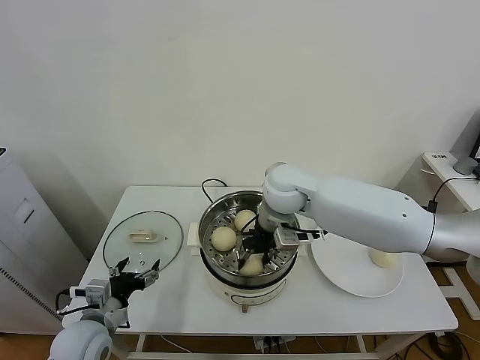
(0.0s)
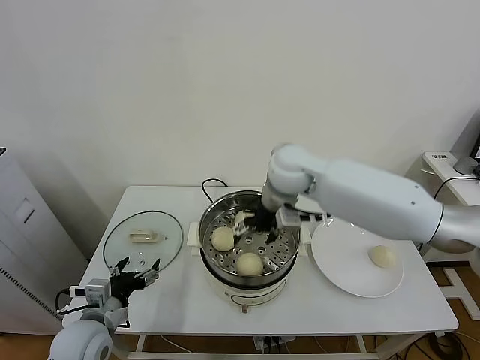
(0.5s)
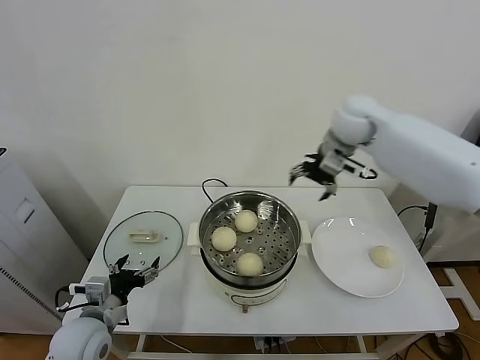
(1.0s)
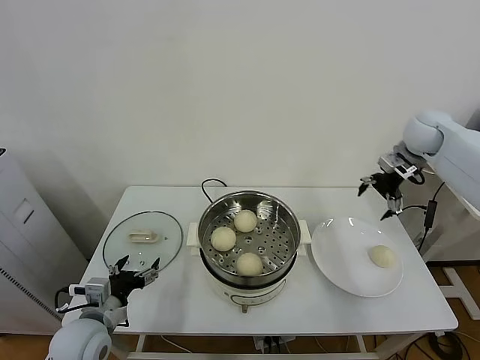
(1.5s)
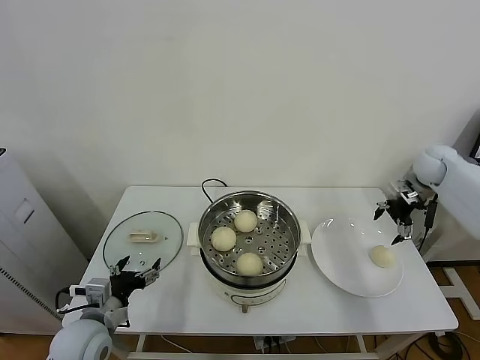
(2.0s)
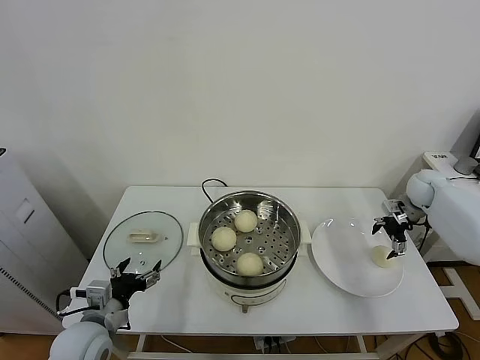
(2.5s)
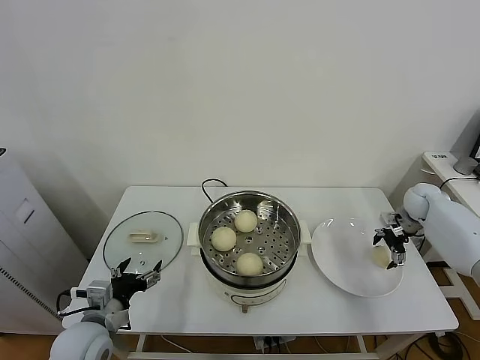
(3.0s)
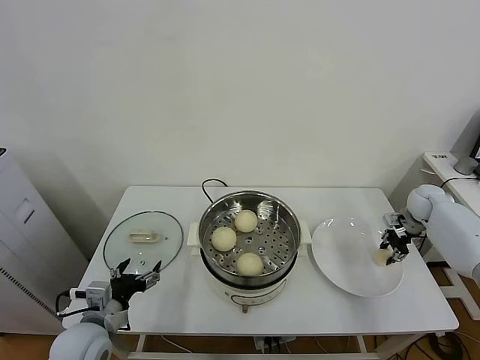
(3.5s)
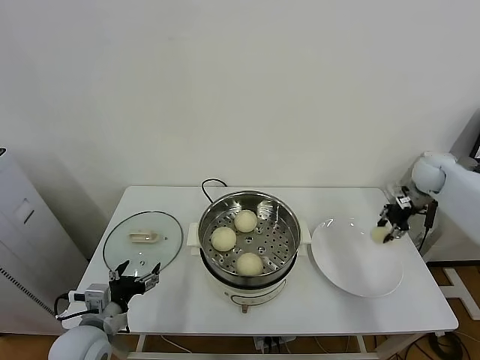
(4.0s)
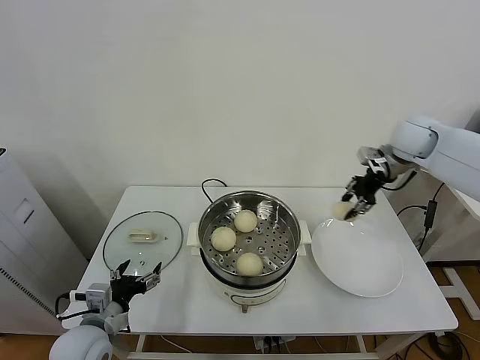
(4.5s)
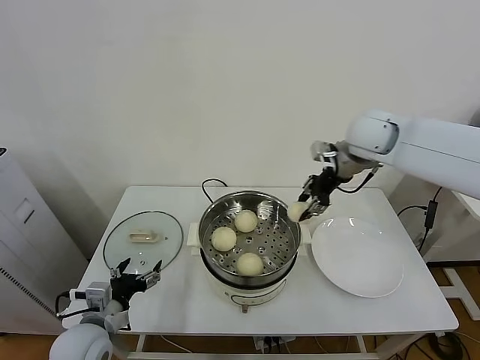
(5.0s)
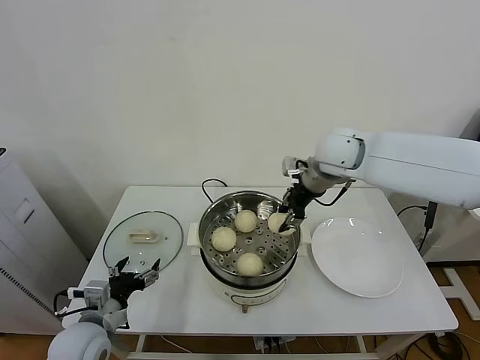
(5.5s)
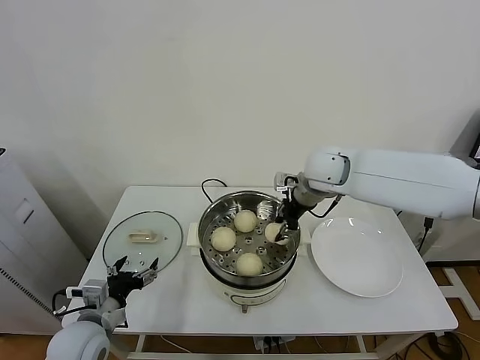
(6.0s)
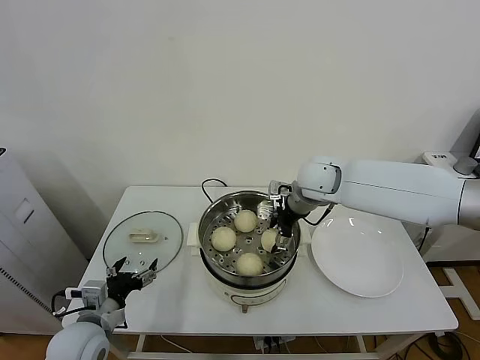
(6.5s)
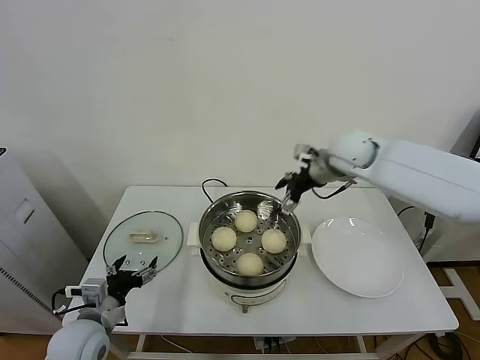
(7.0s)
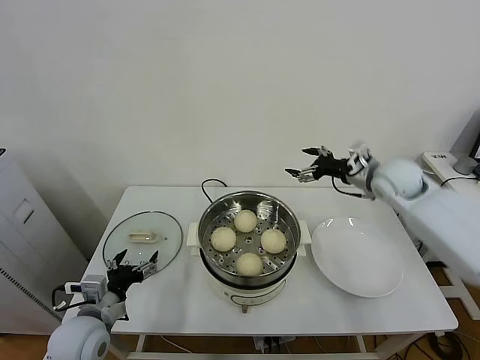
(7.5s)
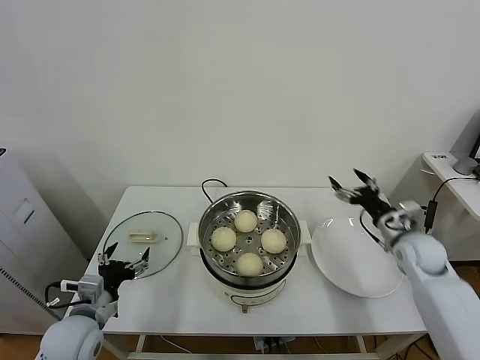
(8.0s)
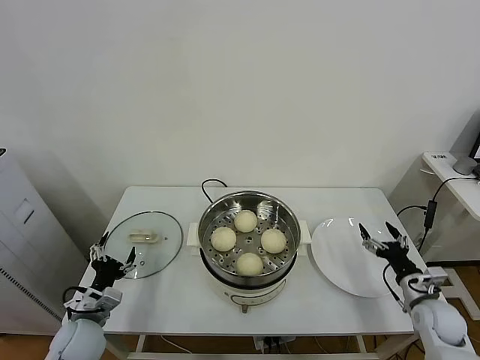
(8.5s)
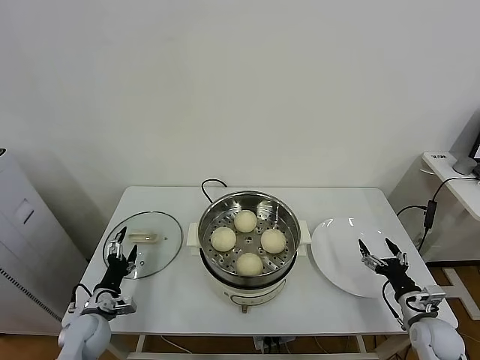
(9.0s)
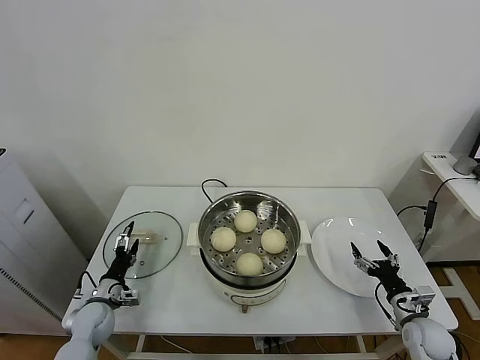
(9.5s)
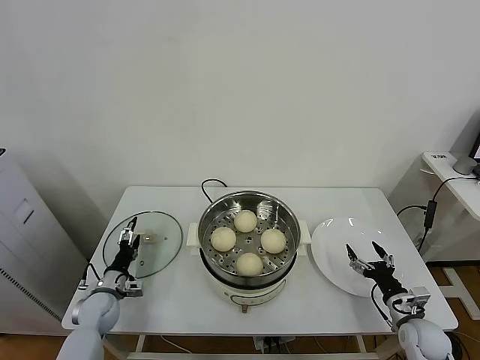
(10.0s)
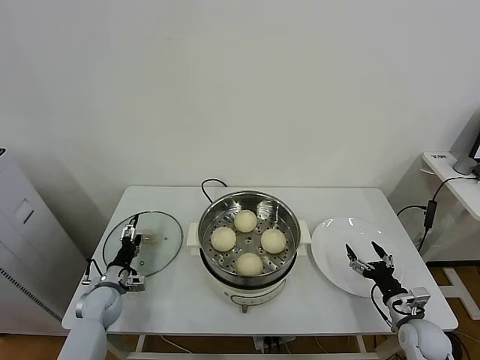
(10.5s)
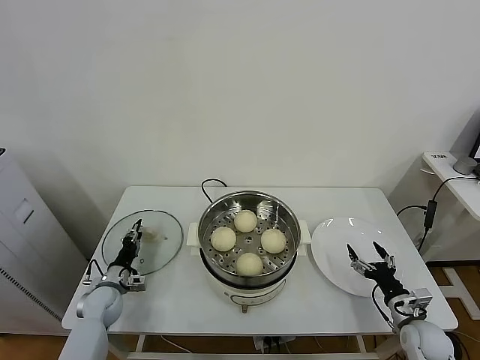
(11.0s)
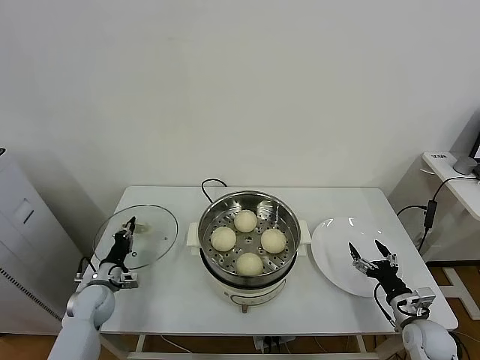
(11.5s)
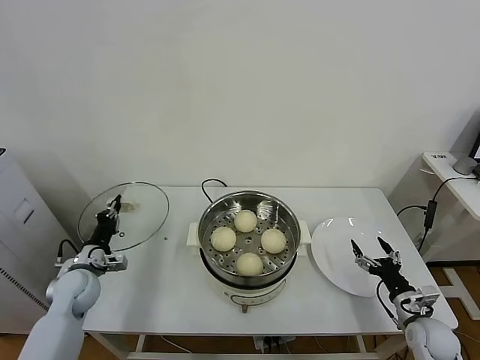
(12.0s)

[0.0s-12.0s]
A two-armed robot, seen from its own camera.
Task of the whole recording: take steamed baozi put them in steamer.
Step, 1.0s to 3.0s: Grasp the baozi in the plate with right gripper.
Step, 4.0s to 6.5s: Place the baozi on the steamer with right gripper.
Step, 7.0s to 11.0s: Grasp the pot lid with left gripper.
0.0s to 2.0s: The right gripper moves to the right, approximately 40 cm, and opens its fingers.
2.0s to 4.0s: The right gripper moves some 10 cm downward and comes back, and closes up.
4.0s to 6.0s: The right gripper shifts approximately 30 cm to the left.
6.0s to 8.0s: The right gripper travels to the right, downward and backward by about 30 cm, and opens its fingers.
8.0s to 10.0s: The left gripper is displaced downward and forward by roughly 20 cm. The right gripper travels downward and backward by approximately 20 cm.
10.0s to 12.0s: The left gripper moves upward, roughly 10 cm, and closes its fingers.

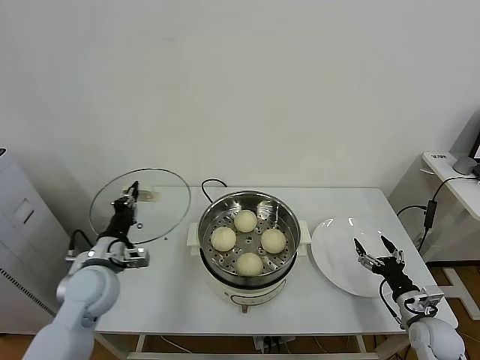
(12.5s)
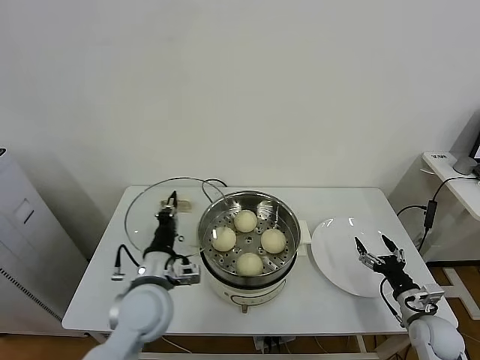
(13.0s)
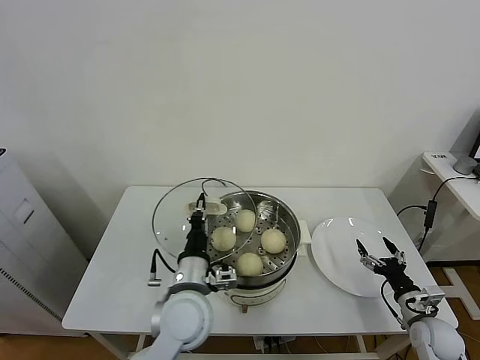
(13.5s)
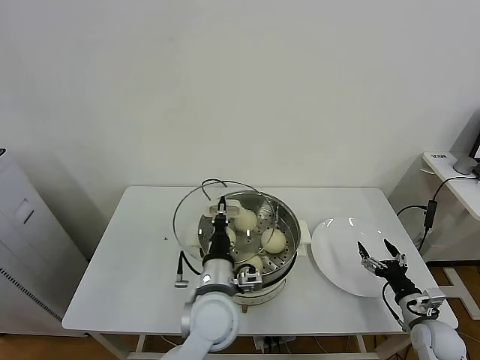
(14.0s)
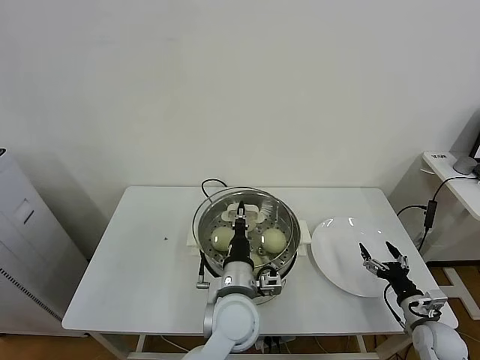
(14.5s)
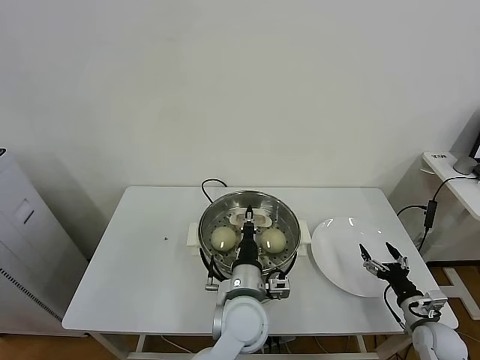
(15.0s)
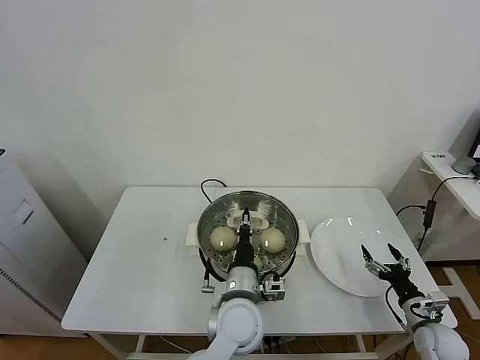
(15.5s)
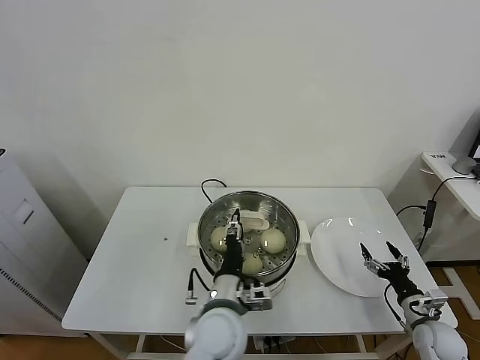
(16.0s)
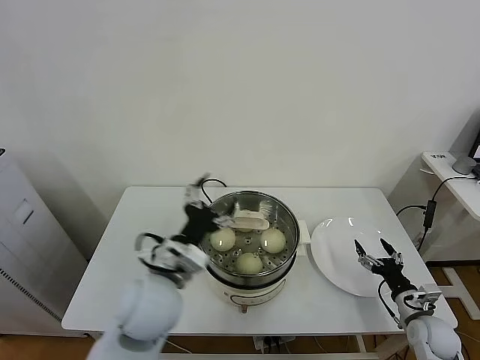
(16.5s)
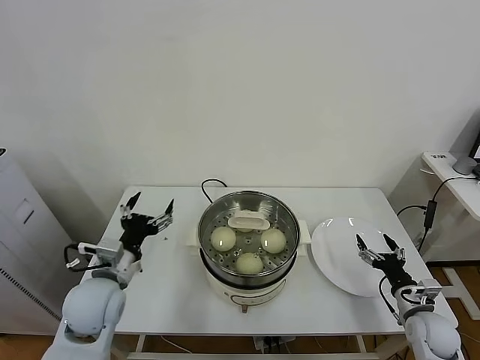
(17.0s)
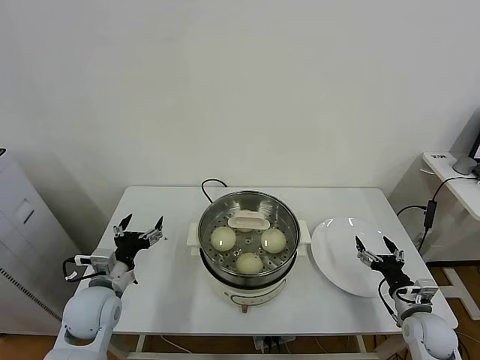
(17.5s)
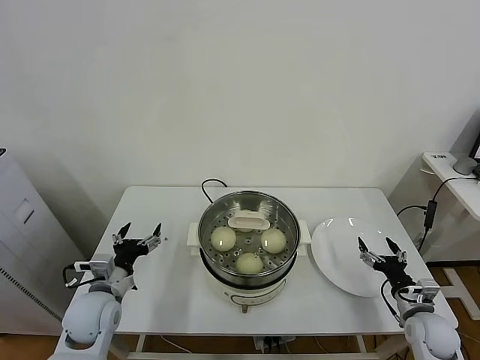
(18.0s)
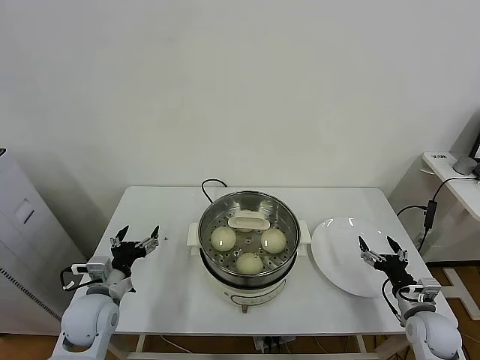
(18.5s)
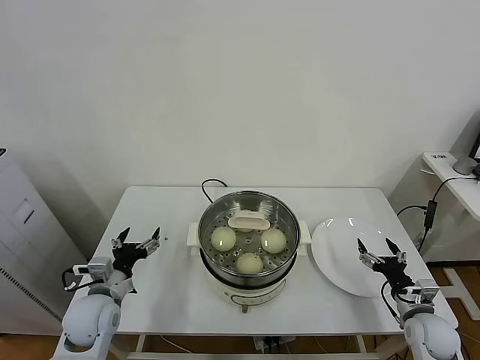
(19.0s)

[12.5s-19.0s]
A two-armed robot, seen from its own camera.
Task of the whole recording: take steamed baozi put them in steamer.
Step, 12.5s to 16.0s: Place the pot lid on the steamer with left gripper.
12.5s to 14.5s: The left gripper moves to the right, approximately 30 cm.
14.5s to 17.0s: The left gripper goes roughly 25 cm to the left, and opens up.
17.0s to 19.0s: The left gripper shifts approximately 10 cm downward.
